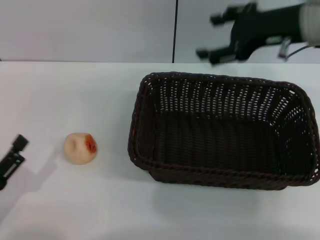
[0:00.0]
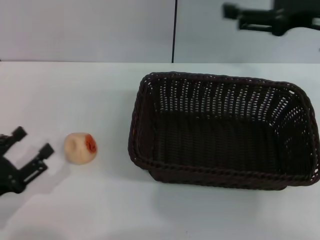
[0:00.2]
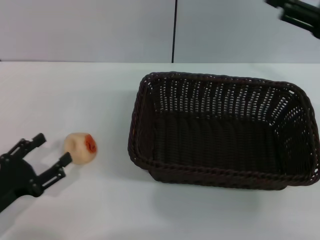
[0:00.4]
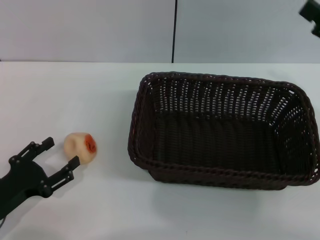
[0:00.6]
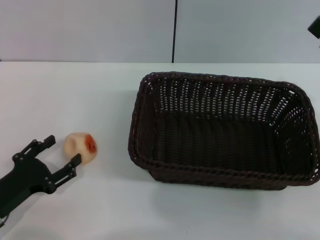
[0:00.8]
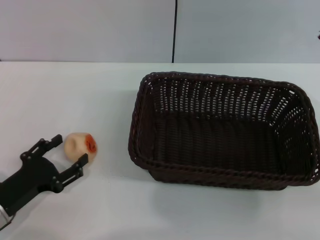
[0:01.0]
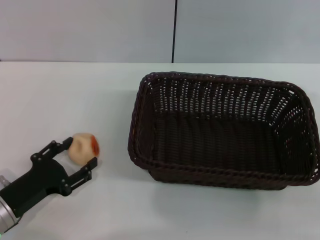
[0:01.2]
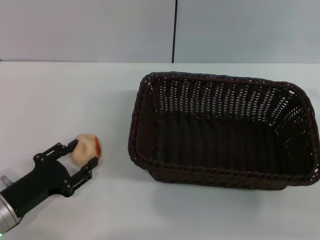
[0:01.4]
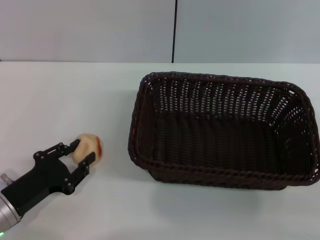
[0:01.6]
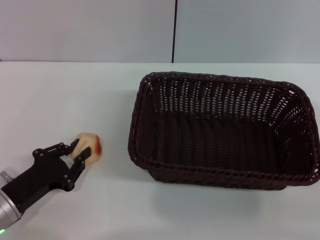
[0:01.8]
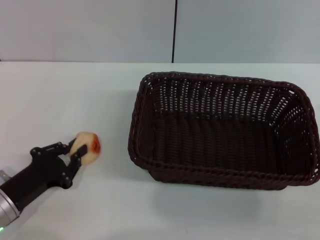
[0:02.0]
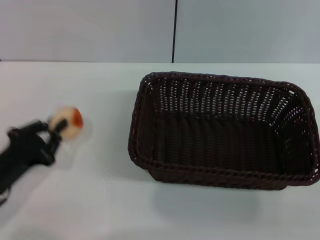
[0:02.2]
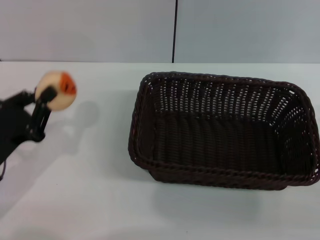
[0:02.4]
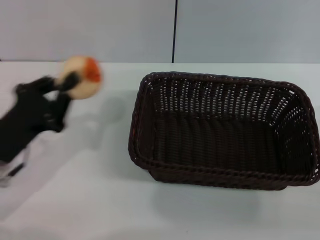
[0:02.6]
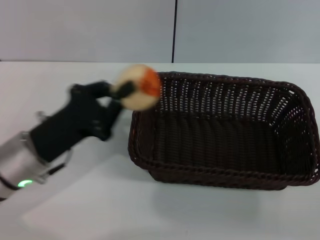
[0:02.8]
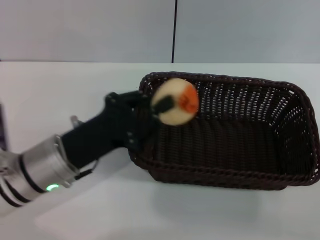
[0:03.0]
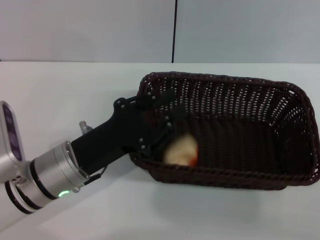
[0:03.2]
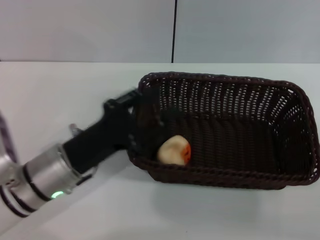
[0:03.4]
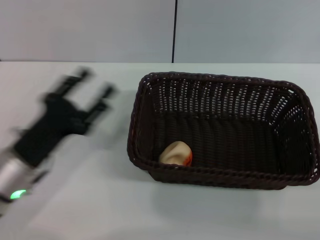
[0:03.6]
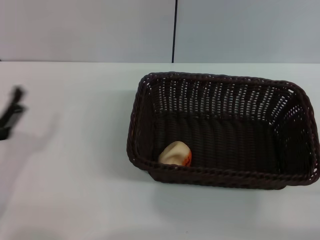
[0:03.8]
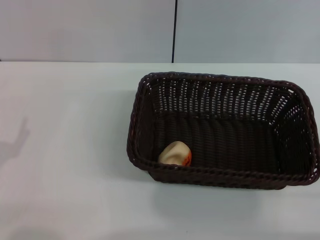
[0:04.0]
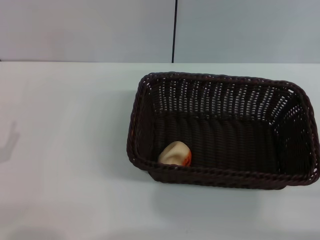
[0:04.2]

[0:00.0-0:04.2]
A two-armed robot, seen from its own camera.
Step, 0:00.0 to 0:02.2: Pick up the egg yolk pastry with the left gripper.
Step, 0:02.4 to 0:03.4: Place the egg yolk pastry into the basket with the left gripper.
0:00.0 to 0:01.4: The left gripper shifts about 5 cm forward. Meanwhile the right gripper moves backward, downward and to the right, about 25 cm.
0:01.4 to 0:02.8: The left gripper is displaced upward, to the right and forward by approximately 10 cm, and closes.
0:02.8 to 0:04.2: The left gripper goes approximately 15 cm to the left, backward and downward, and opens.

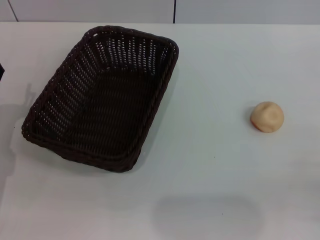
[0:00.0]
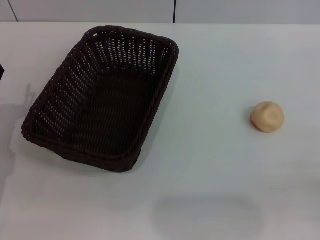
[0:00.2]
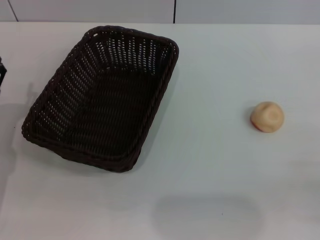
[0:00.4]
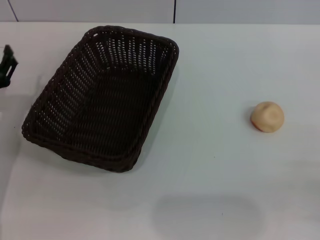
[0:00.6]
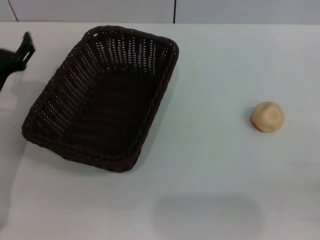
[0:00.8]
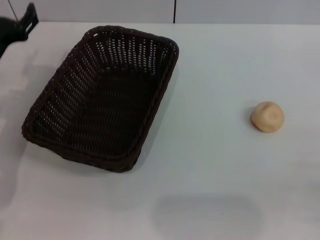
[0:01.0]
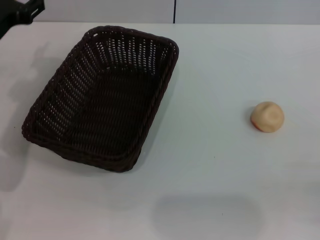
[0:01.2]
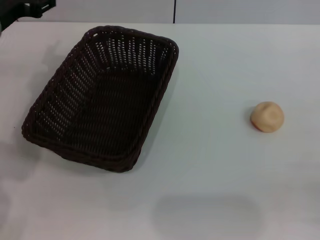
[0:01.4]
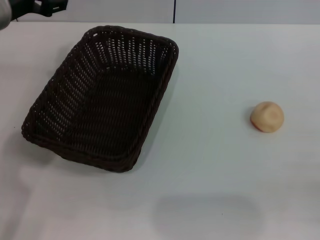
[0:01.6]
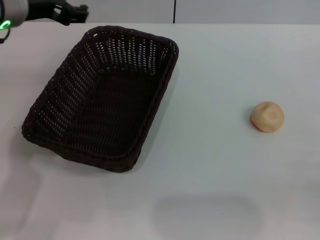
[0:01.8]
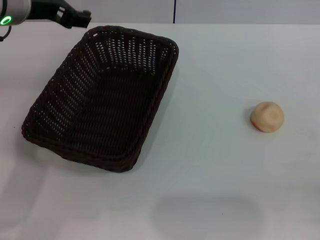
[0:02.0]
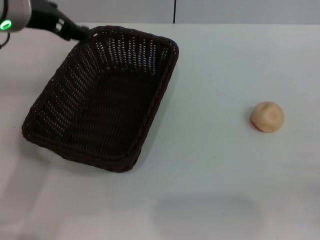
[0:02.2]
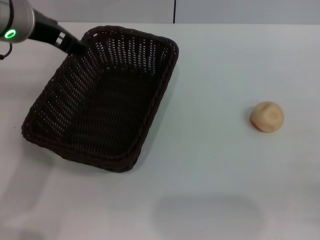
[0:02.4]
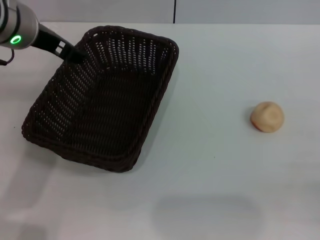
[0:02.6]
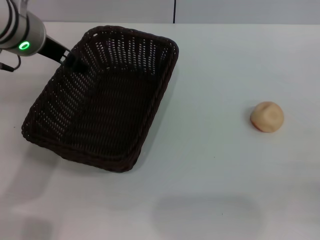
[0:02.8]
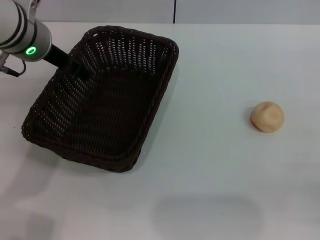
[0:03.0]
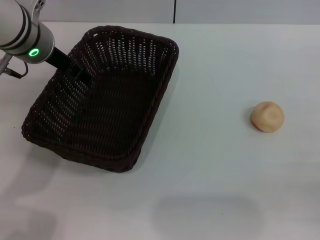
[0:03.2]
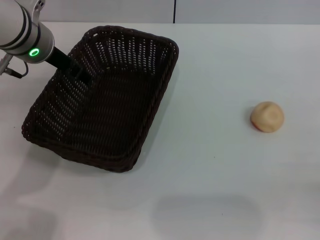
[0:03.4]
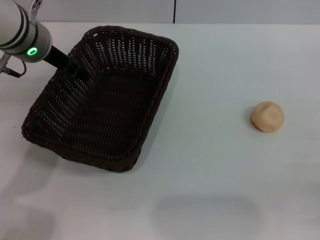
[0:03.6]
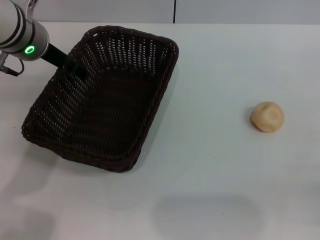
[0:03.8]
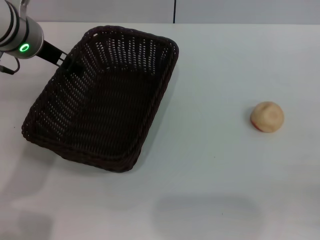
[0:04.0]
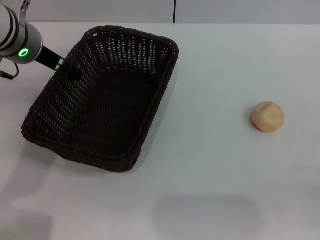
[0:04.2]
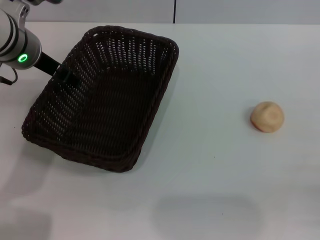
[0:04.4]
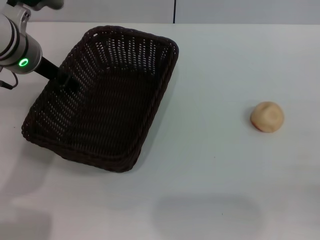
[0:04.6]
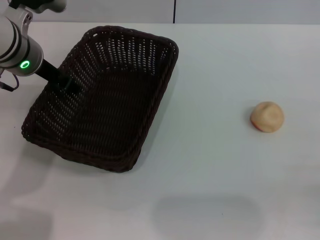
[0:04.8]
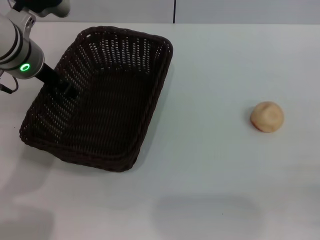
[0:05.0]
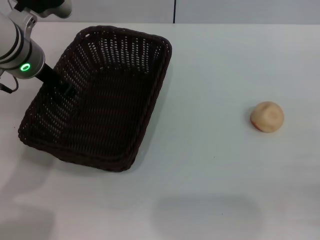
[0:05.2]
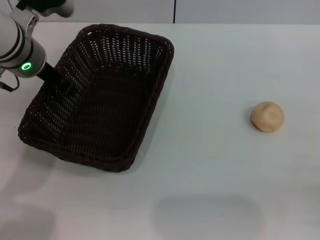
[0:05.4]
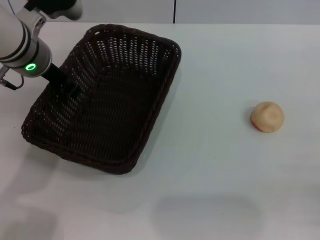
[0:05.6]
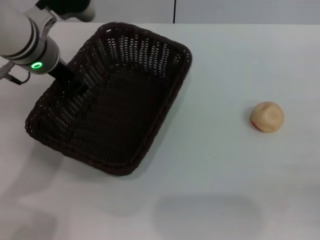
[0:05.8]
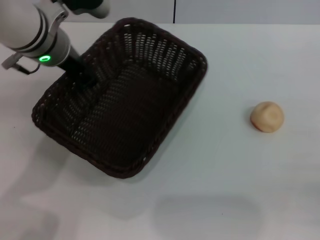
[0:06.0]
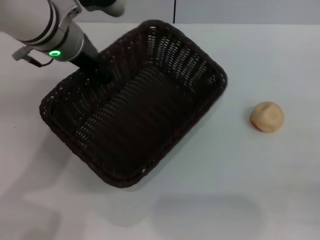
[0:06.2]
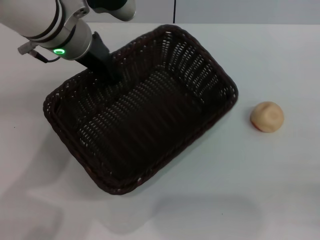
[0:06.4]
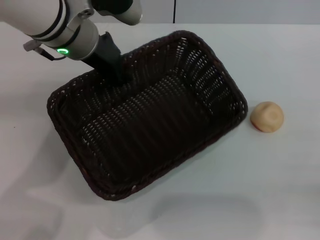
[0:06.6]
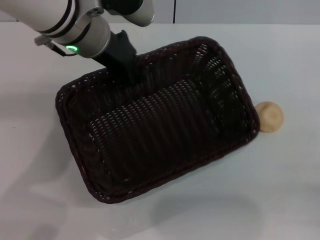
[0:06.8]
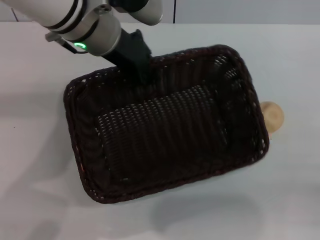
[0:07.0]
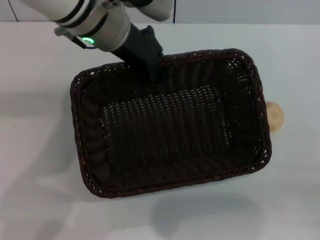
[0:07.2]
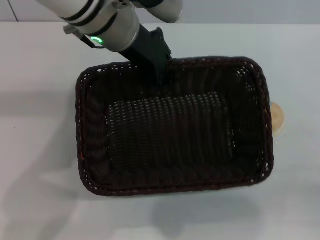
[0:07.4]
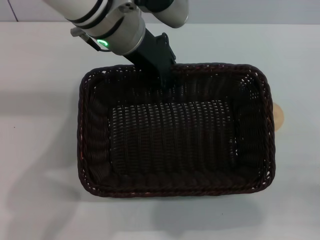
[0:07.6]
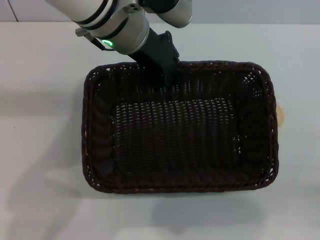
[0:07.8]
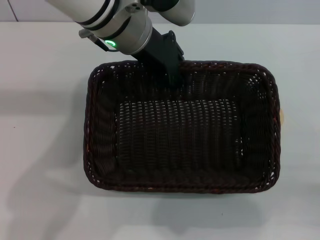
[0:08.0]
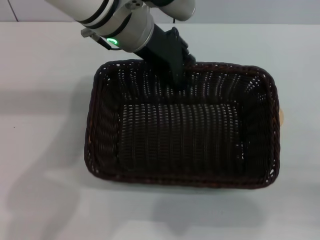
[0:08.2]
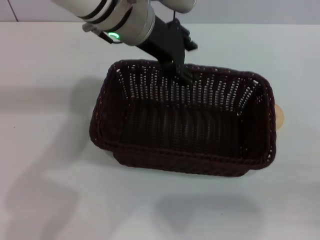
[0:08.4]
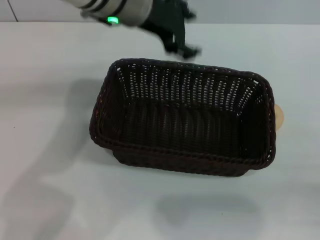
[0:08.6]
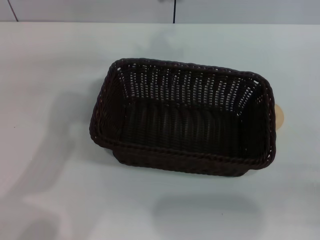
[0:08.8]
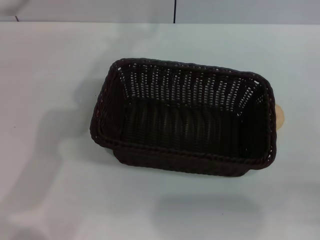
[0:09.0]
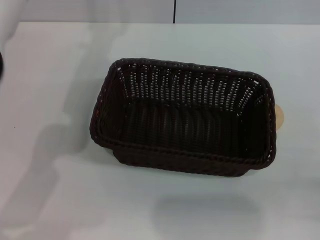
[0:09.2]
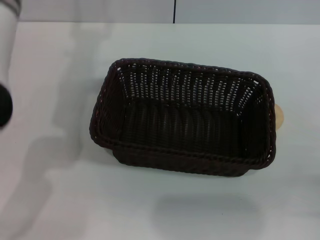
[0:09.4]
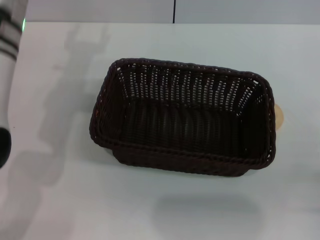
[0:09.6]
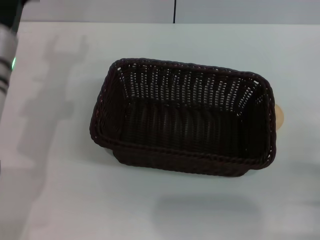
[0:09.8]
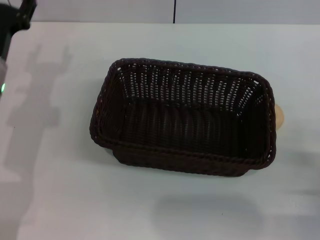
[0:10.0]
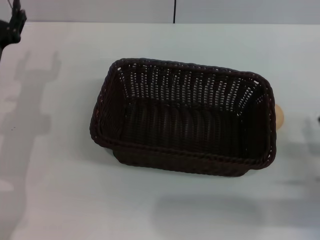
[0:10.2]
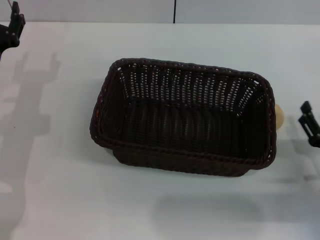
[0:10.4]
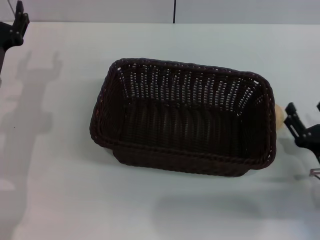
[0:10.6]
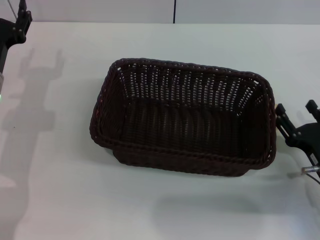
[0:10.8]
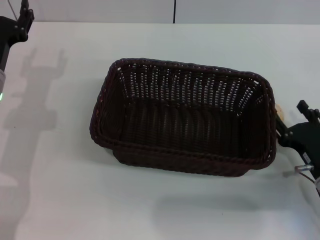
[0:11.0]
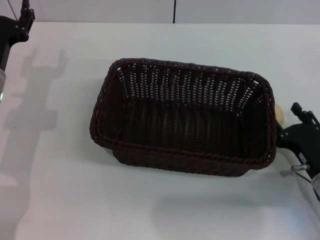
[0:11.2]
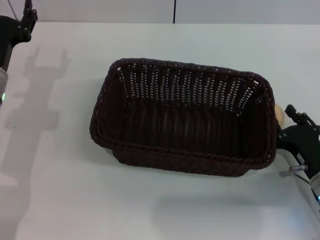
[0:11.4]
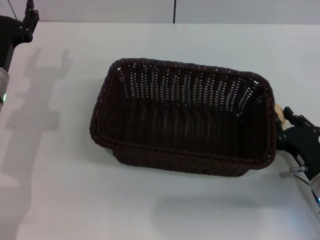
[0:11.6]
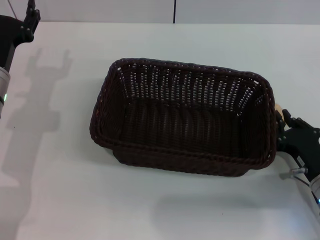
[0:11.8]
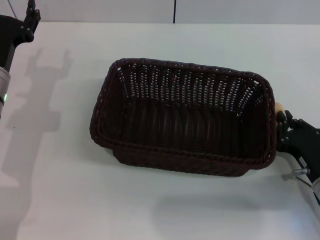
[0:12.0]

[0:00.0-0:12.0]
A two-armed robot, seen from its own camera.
Step, 0:00.0 to 0:08.4: Move the basket to the center of view with the left gripper.
0:00.0 to 0:01.6: The left gripper goes some 25 cm upward, forward and to the right.
0:01.6 to 0:03.0: The left gripper moves roughly 5 cm.
0:03.0 to 0:04.4: The grippers stay close to where they were, moving slightly.
0:04.4 to 0:06.0: The left gripper closes.
0:06.0 to 0:07.6: The left gripper heads to the right, covering about 10 cm.
0:07.6 to 0:09.0: The left gripper goes some 5 cm to the left, and opens.
0:09.0 to 0:10.4: The left gripper goes approximately 25 cm downward, to the left and backward. The right gripper is displaced forward by approximately 10 cm.
0:10.4 to 0:12.0: The right gripper closes.

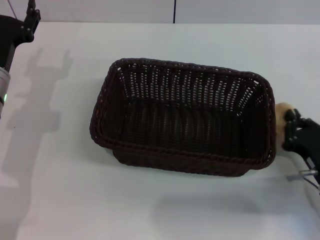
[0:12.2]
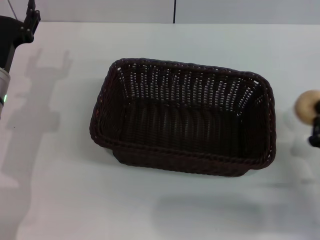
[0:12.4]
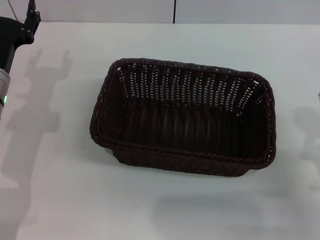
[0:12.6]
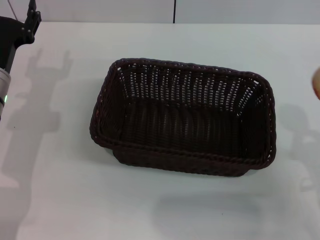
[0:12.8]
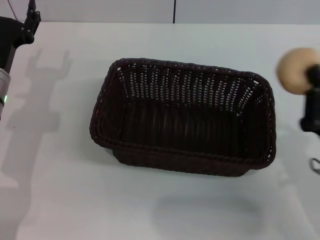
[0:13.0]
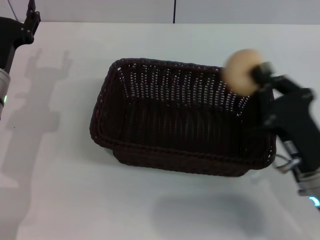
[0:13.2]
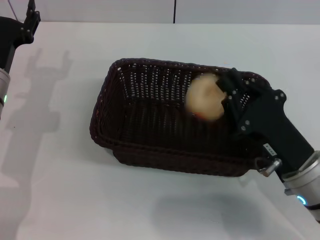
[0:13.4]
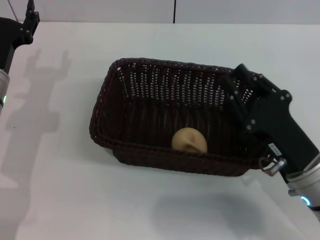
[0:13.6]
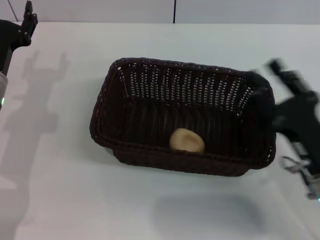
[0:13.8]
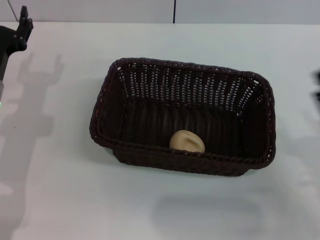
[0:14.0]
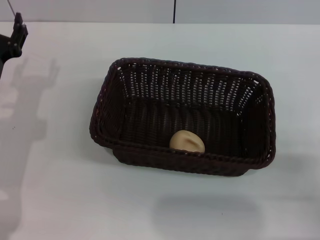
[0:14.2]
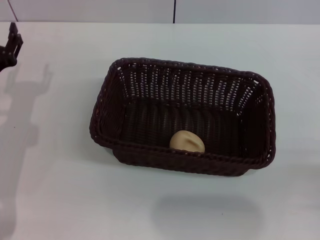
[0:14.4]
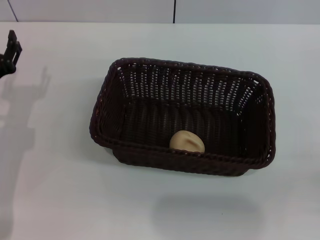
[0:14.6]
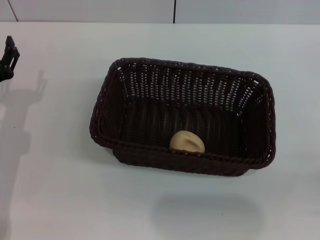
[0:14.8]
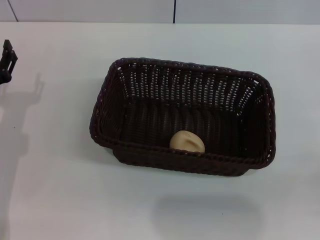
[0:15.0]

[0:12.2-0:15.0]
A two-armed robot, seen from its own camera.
Step, 0:12.4 to 0:13.8: Place the egg yolk pastry into the basket with the right gripper.
0:12.2 to 0:13.6: The right gripper is displaced to the left and upward by about 10 cm.
0:13.6 to 0:15.0: The left gripper shifts by about 5 cm. Meanwhile the right gripper travels to the right and backward by about 20 cm, and opens.
